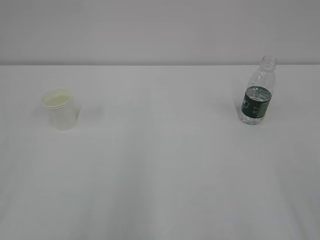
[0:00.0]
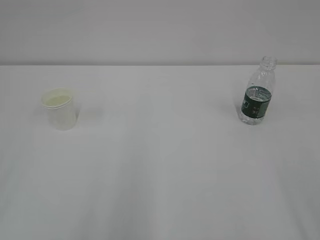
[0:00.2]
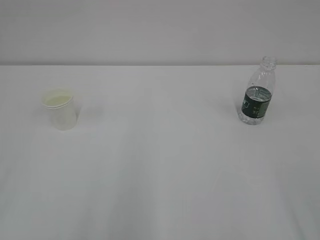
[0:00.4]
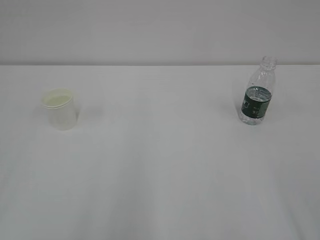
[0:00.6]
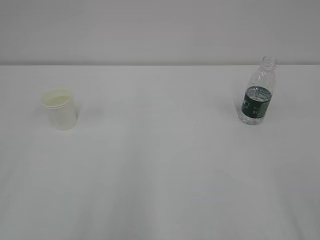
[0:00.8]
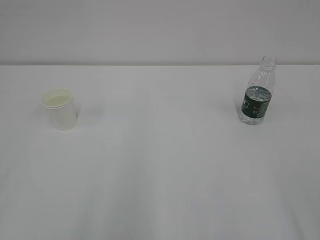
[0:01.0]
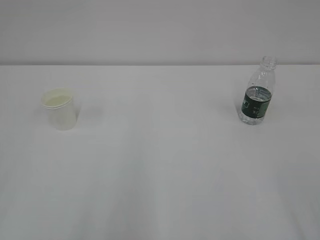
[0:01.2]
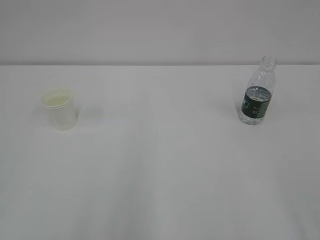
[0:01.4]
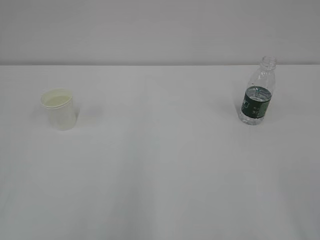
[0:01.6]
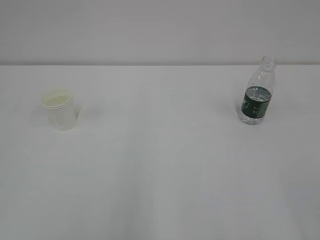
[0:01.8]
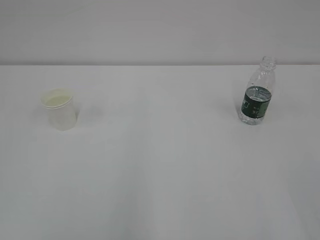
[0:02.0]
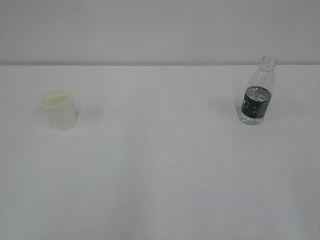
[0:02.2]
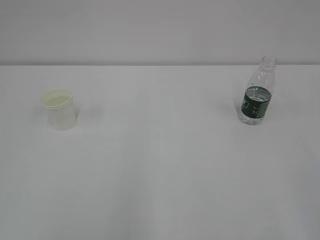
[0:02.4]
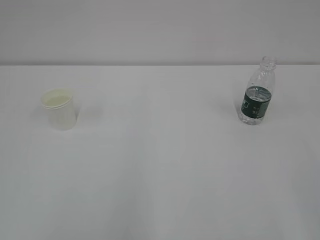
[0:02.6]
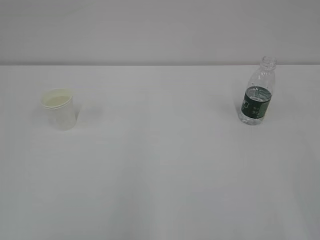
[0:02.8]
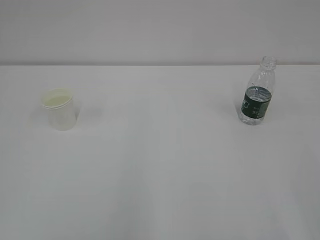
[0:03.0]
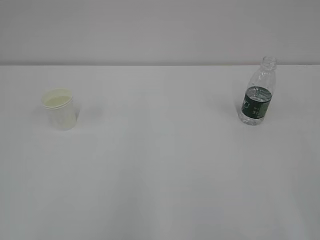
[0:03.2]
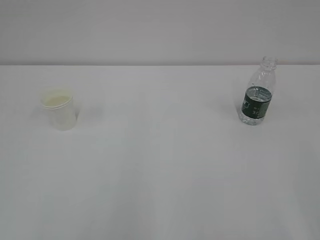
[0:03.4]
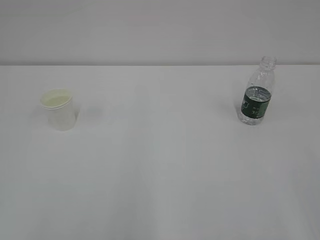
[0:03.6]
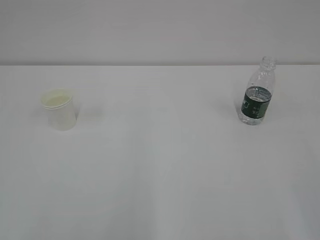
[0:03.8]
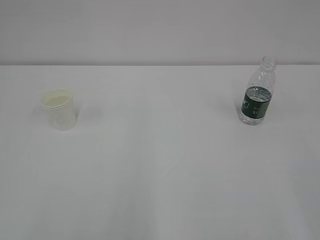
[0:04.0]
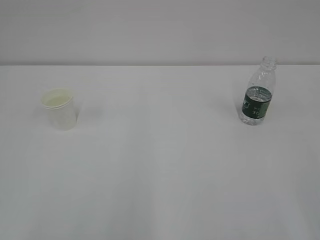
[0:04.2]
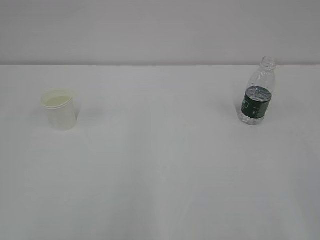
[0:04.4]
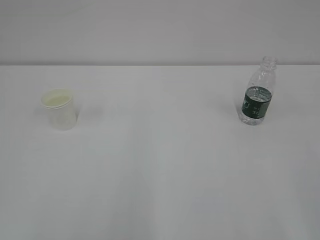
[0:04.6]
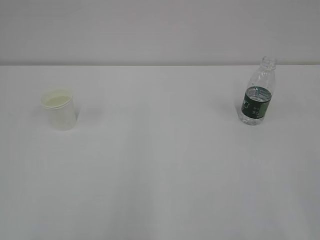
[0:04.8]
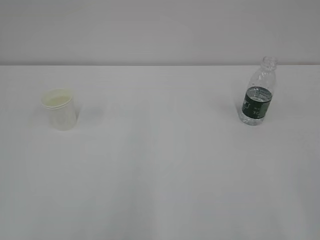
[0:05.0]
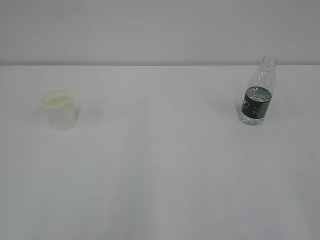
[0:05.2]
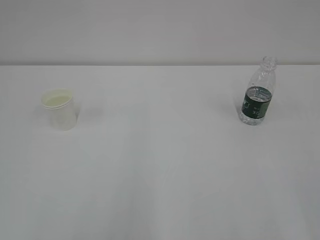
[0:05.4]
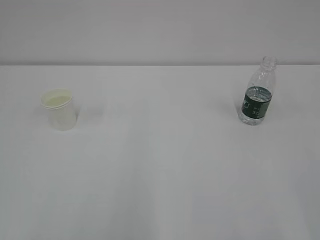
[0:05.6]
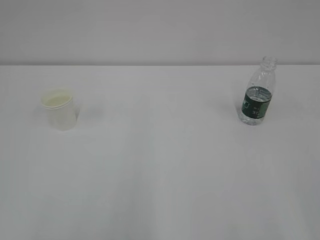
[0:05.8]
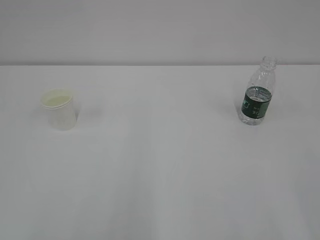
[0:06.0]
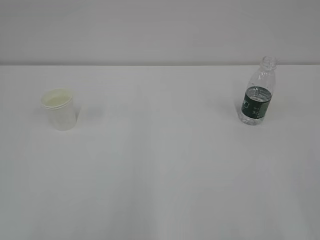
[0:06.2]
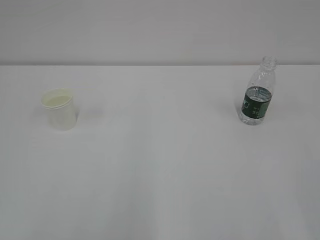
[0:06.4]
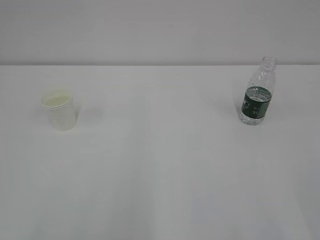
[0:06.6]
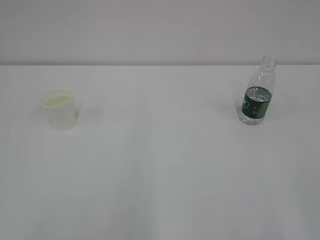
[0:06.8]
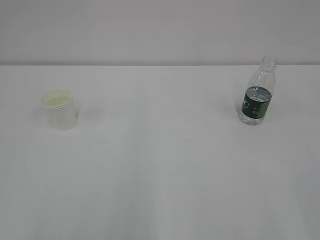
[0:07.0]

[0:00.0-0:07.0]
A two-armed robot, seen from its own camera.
0:05.6 to 0:07.0: Both grippers stay about where they are.

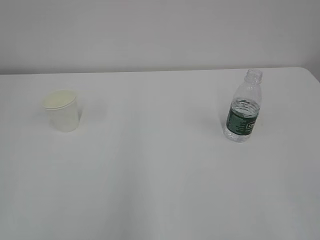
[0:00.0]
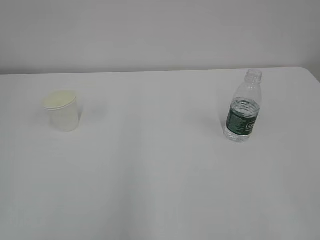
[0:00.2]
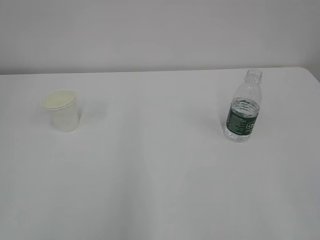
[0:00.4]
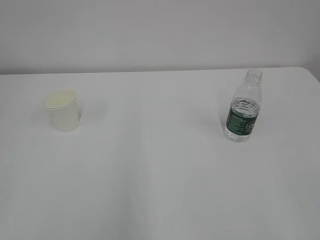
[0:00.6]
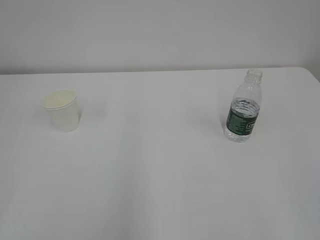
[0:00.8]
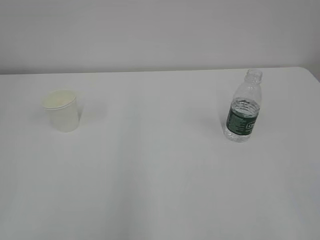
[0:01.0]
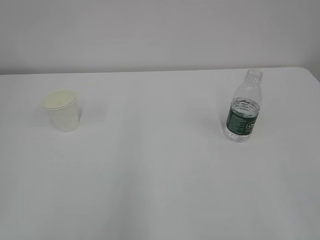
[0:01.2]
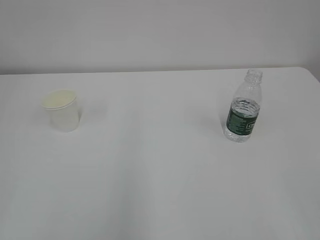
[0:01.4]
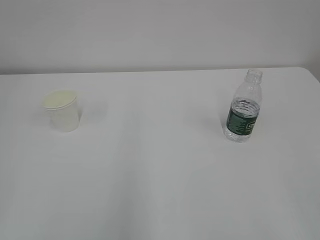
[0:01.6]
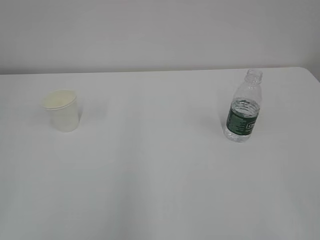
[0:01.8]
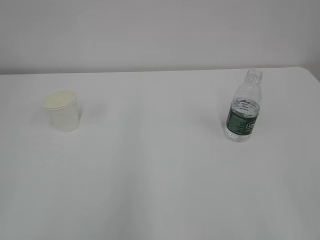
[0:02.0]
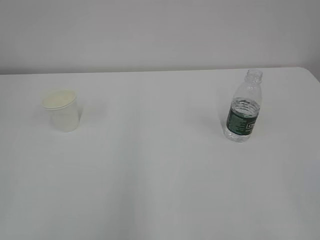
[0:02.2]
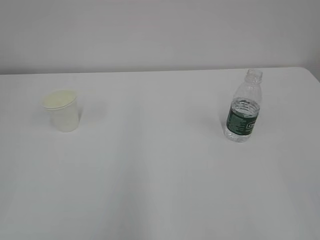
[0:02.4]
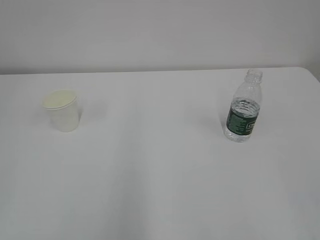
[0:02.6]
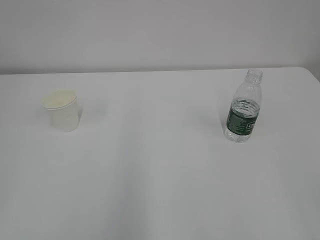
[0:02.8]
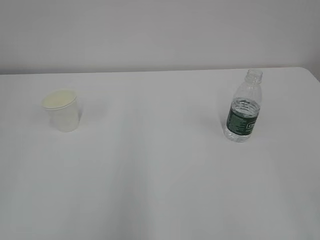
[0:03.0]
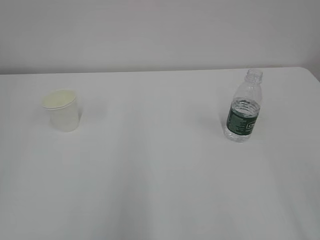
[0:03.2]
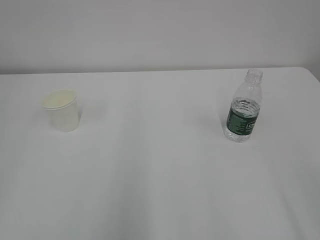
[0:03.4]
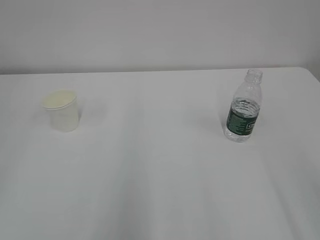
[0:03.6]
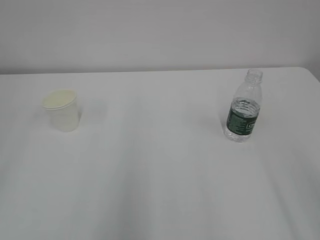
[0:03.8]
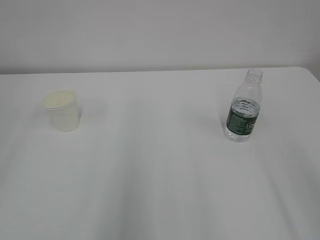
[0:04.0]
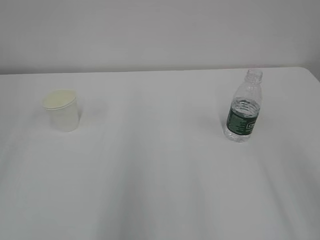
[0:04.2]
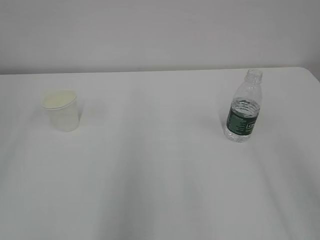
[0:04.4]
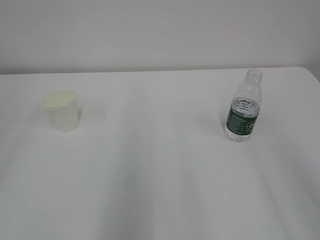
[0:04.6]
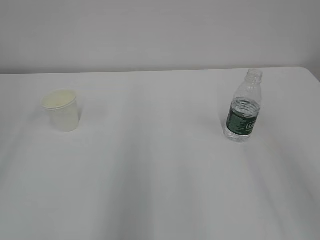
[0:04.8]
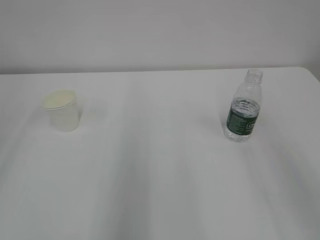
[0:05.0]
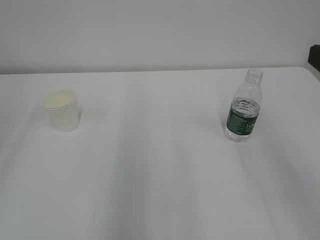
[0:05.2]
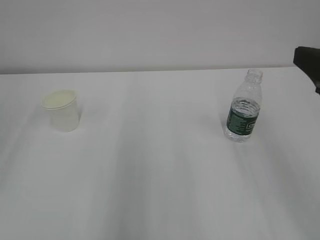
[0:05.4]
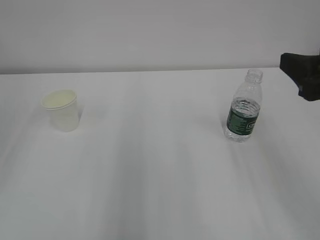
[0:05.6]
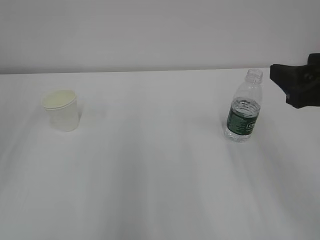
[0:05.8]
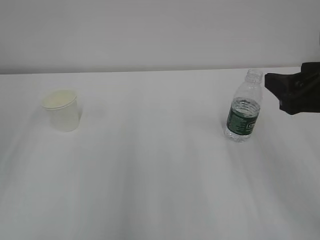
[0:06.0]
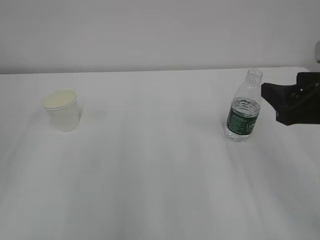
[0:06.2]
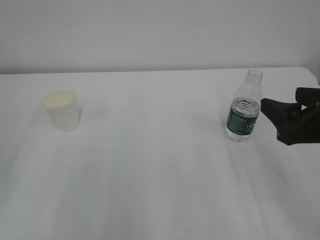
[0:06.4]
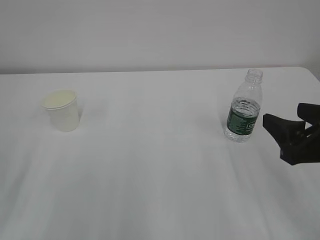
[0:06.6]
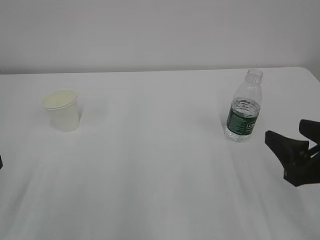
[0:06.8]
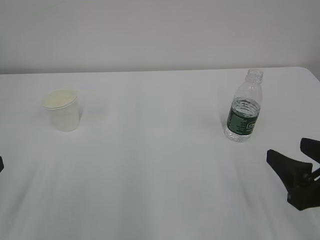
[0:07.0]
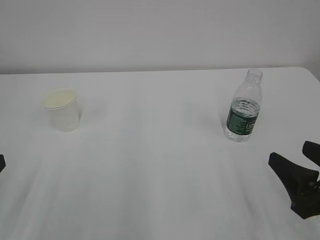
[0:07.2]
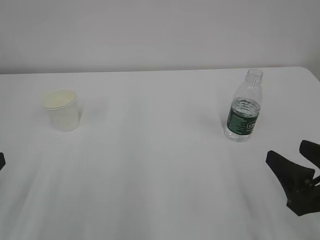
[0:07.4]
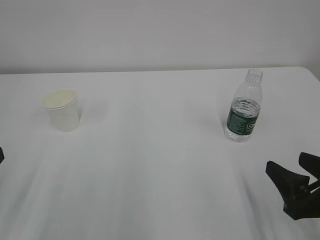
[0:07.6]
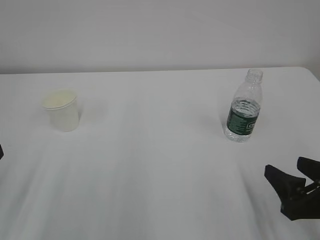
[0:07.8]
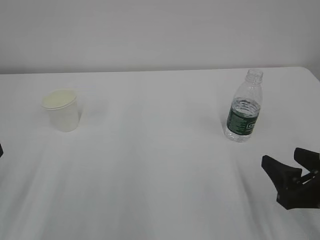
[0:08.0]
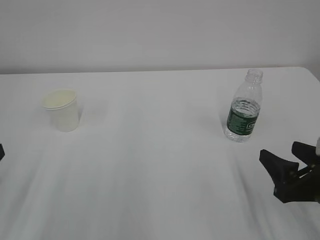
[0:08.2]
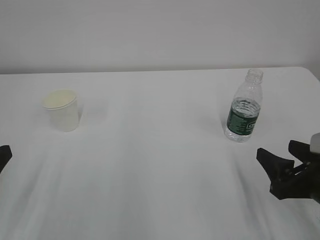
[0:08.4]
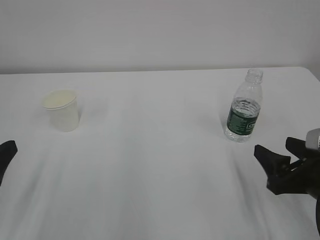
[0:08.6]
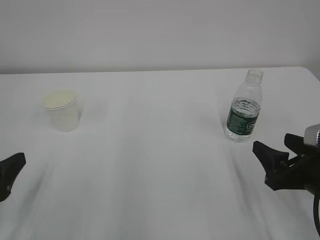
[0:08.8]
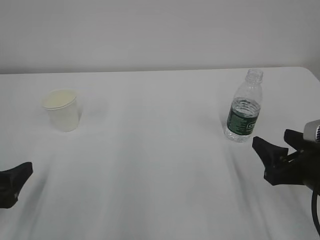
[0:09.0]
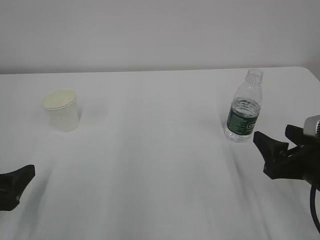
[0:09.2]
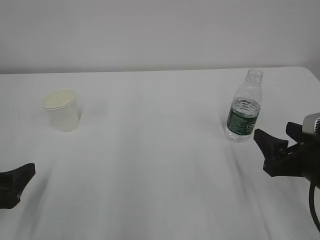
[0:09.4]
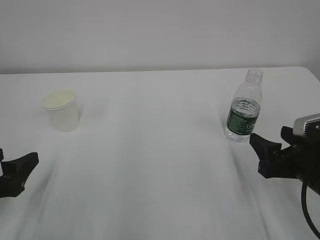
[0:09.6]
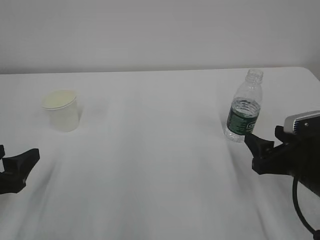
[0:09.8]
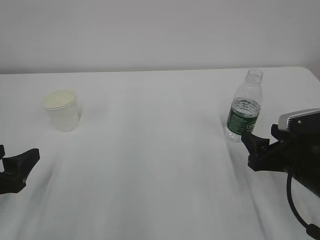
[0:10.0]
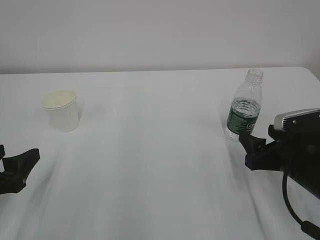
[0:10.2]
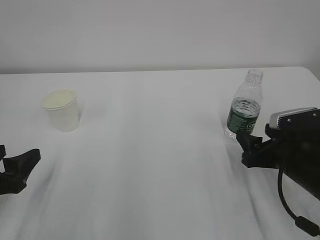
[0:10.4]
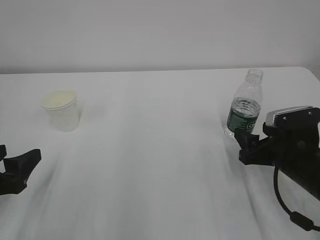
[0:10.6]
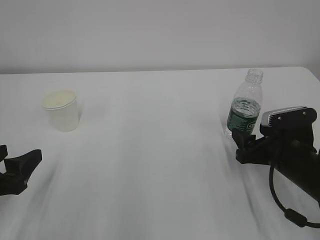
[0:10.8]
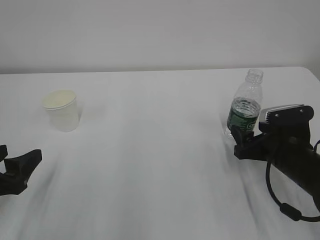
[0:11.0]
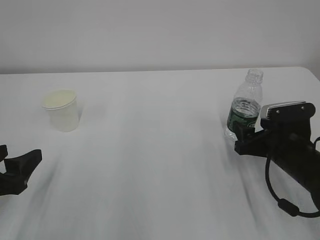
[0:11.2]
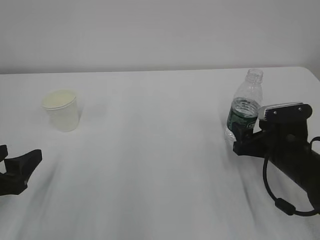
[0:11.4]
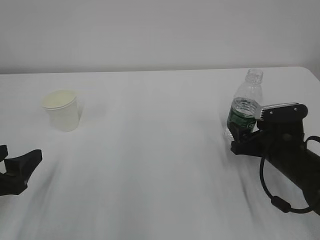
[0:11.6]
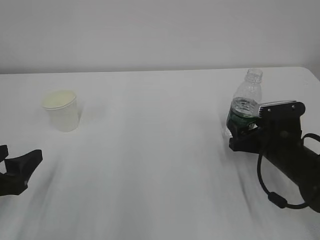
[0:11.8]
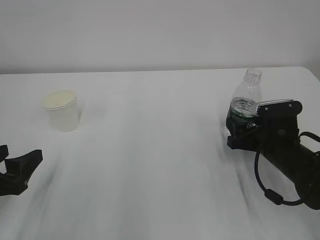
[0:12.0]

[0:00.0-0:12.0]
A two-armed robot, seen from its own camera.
0:04.4 to 0:06.0: The right gripper travels forward and downward by approximately 15 cm.
0:06.0 to 0:07.6: The right gripper is displaced downward and backward by approximately 15 cm.
0:07.6 to 0:09.0: The left gripper moves roughly 5 cm, and opens up.
0:09.0 to 0:10.4: The right gripper shifts about 5 cm forward.
0:10.4 to 0:12.0: The right gripper travels forward by approximately 5 cm.

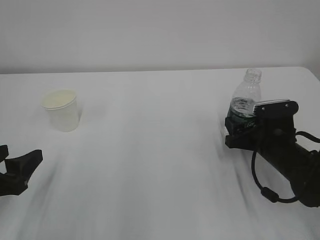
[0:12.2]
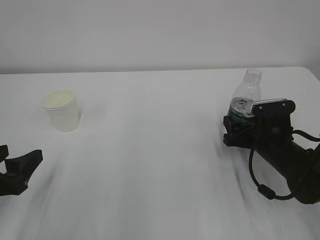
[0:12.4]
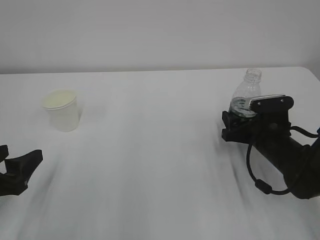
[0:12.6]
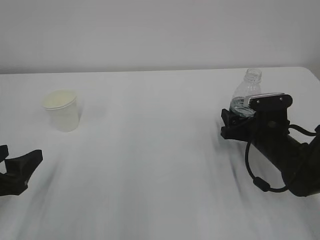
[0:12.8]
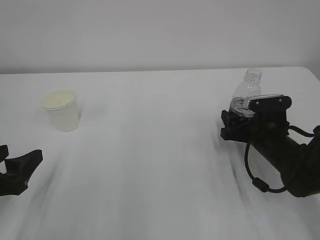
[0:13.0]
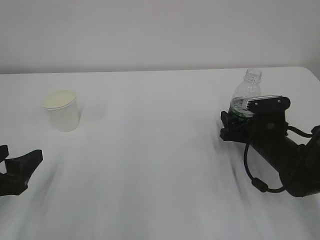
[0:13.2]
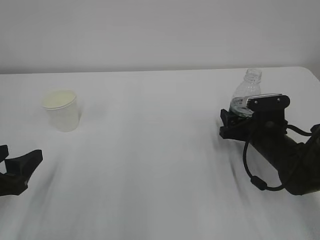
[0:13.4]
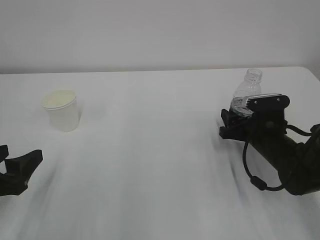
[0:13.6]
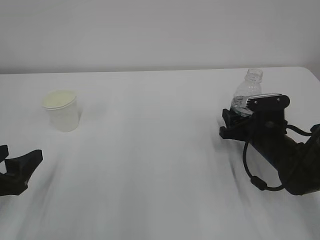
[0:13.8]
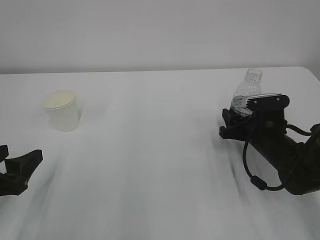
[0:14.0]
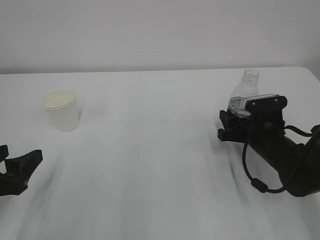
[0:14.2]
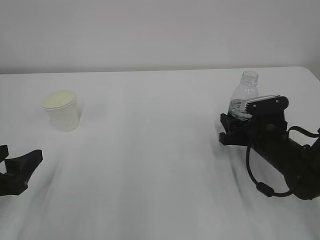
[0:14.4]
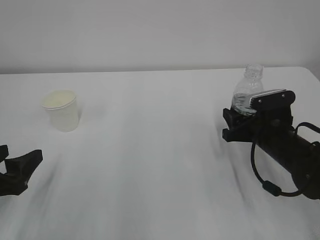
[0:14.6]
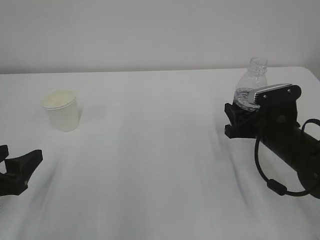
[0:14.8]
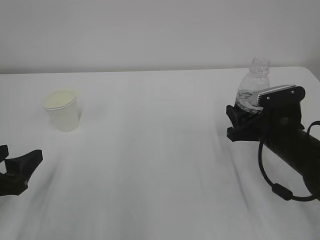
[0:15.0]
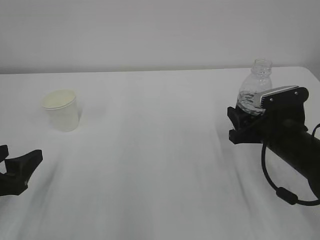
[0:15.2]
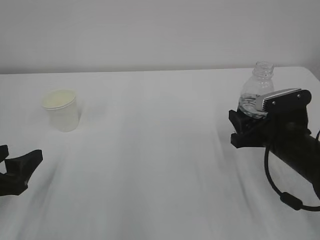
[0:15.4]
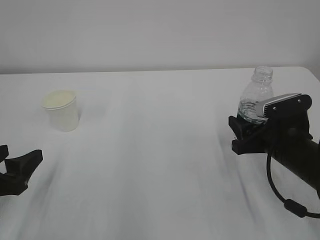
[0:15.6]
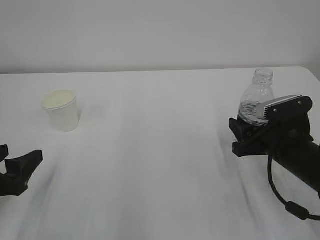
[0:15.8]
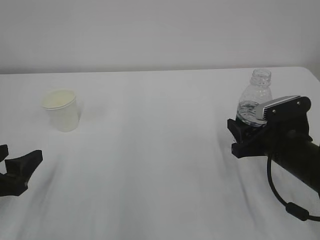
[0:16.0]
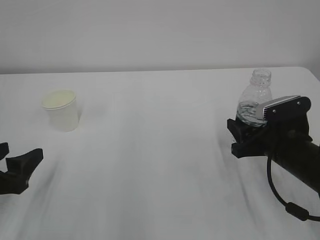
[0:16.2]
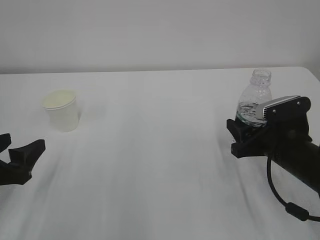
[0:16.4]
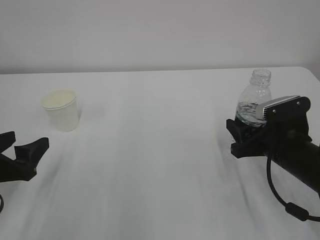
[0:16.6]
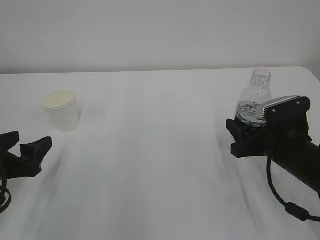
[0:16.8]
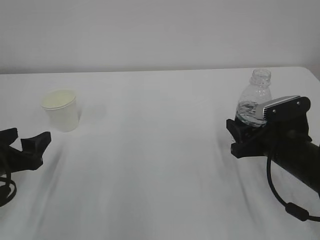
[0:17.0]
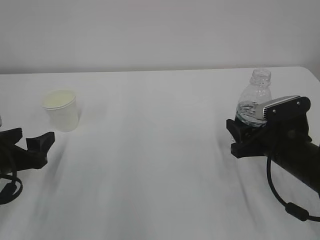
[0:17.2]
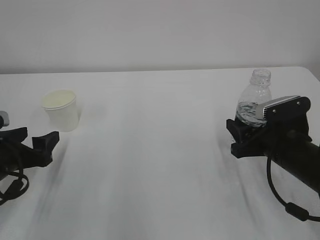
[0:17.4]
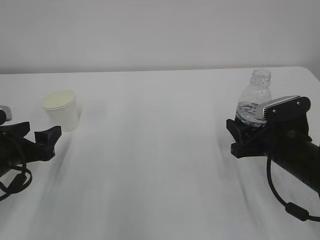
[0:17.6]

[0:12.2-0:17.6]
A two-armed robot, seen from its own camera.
0:12.2 to 0:13.6: The grippers stay close to where they were, moving slightly.
0:13.6 to 0:15.0: The right gripper shifts by about 5 cm, and closes up.
0:15.0 to 0:16.2: There are only small adjustments of the grippers.
0:16.2 to 0:17.6: The left gripper goes roughly 5 cm forward.
